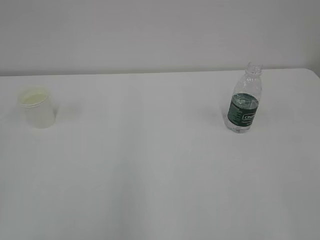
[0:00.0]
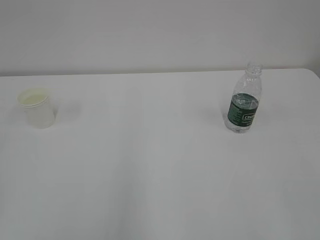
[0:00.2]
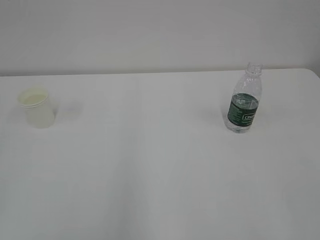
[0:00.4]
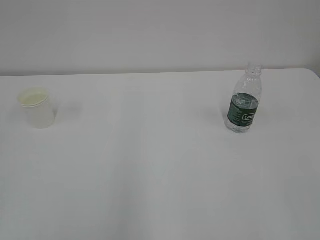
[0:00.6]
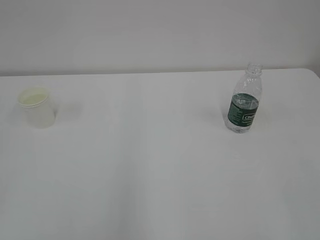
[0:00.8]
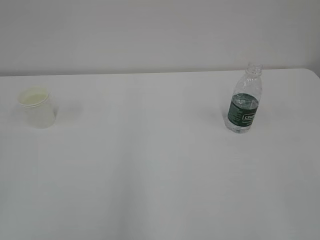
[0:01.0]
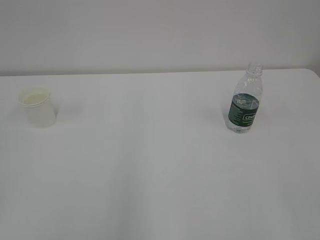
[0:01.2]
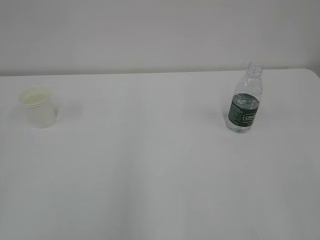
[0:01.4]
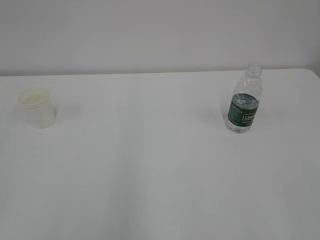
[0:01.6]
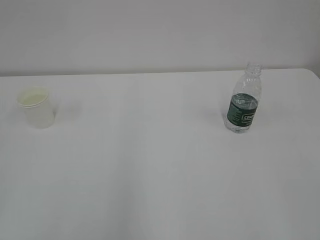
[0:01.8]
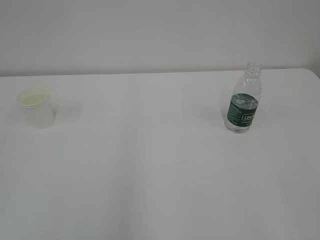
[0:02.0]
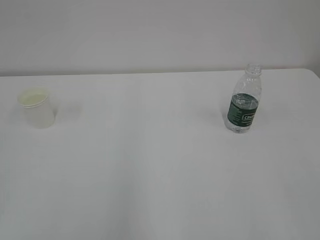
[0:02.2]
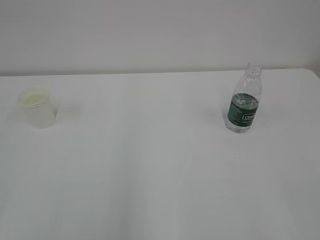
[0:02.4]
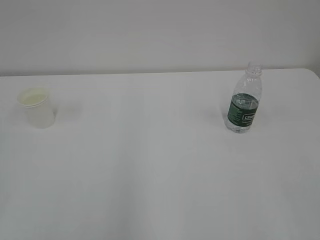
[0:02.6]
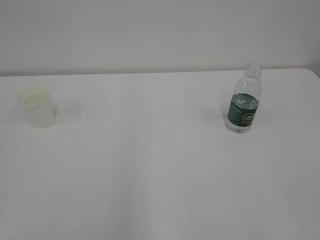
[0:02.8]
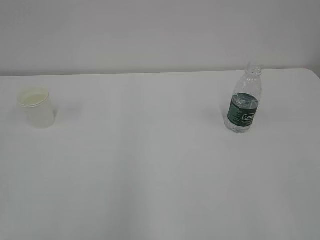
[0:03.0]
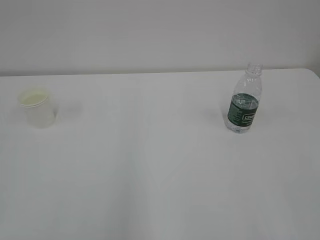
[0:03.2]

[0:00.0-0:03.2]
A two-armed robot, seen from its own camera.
0:01.6 to 0:03.2: The two grippers keep their place.

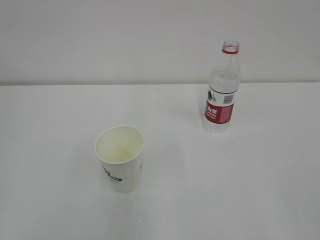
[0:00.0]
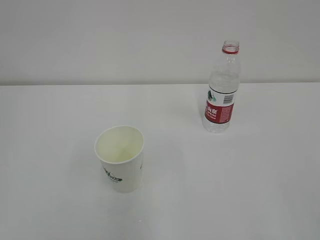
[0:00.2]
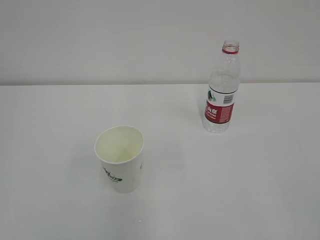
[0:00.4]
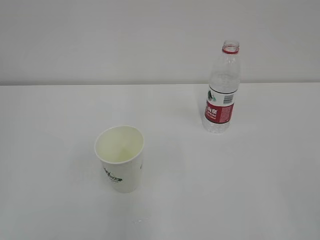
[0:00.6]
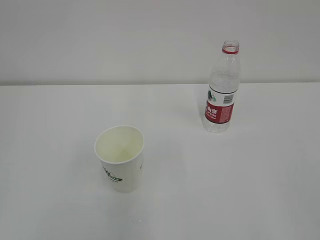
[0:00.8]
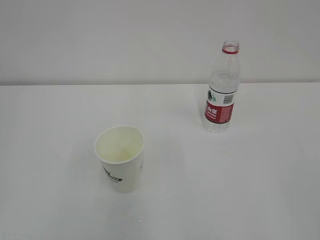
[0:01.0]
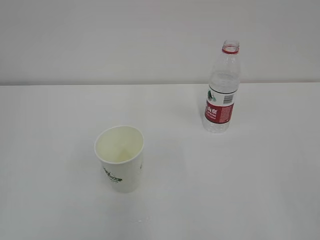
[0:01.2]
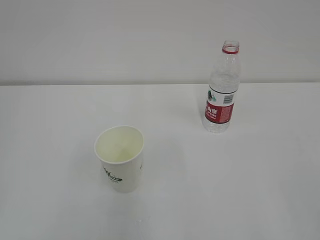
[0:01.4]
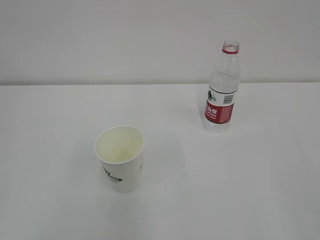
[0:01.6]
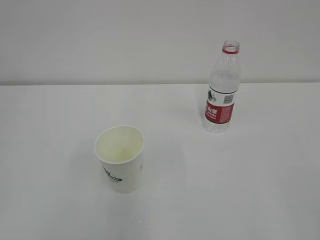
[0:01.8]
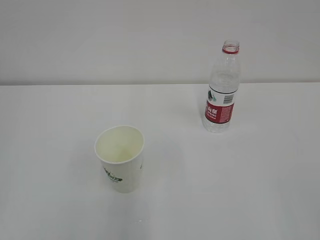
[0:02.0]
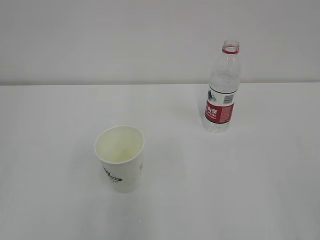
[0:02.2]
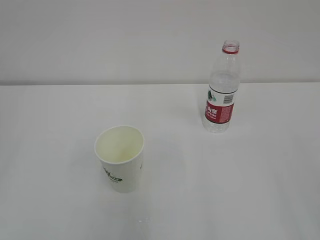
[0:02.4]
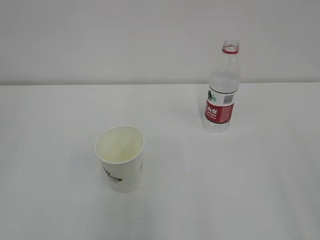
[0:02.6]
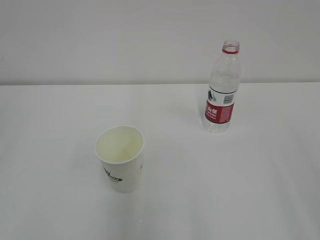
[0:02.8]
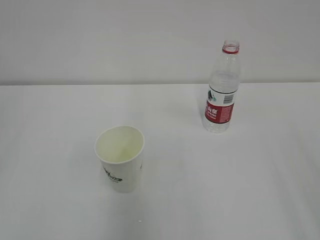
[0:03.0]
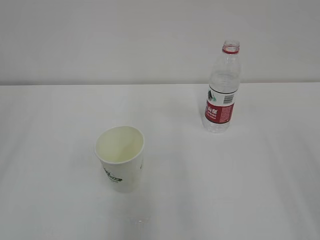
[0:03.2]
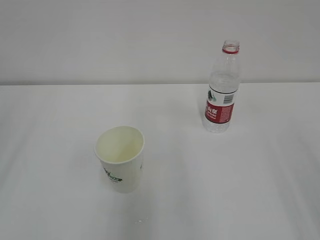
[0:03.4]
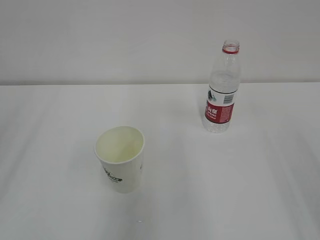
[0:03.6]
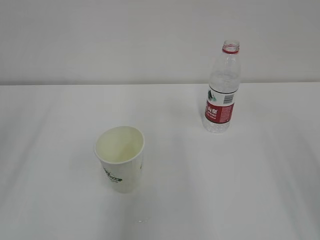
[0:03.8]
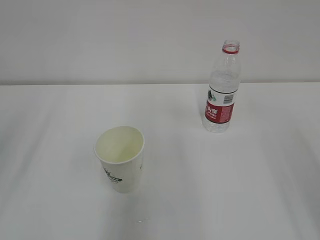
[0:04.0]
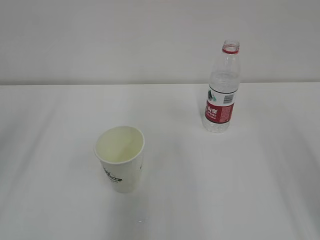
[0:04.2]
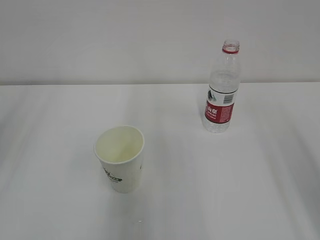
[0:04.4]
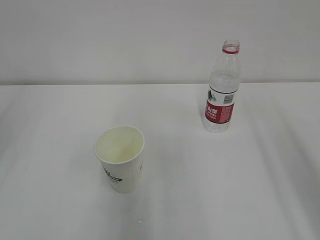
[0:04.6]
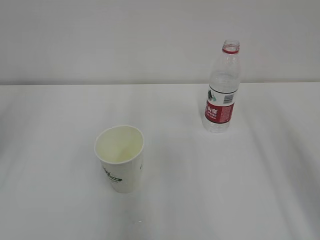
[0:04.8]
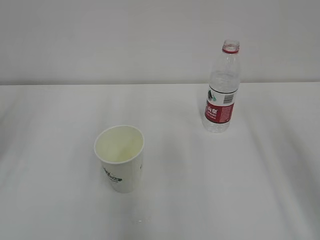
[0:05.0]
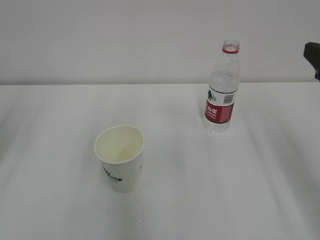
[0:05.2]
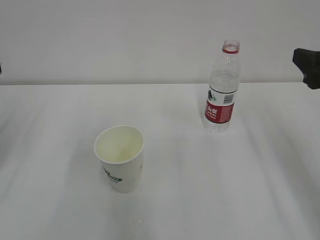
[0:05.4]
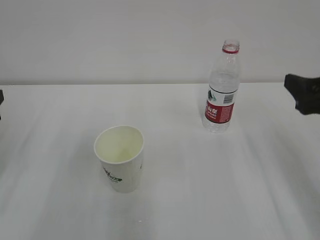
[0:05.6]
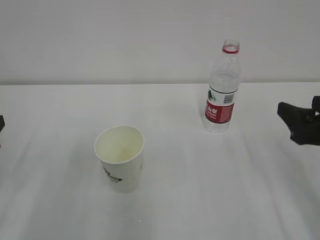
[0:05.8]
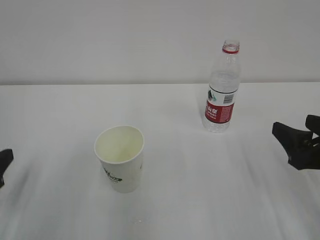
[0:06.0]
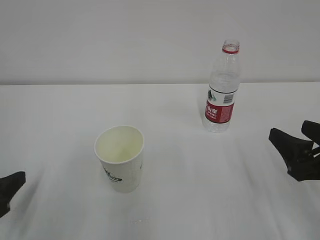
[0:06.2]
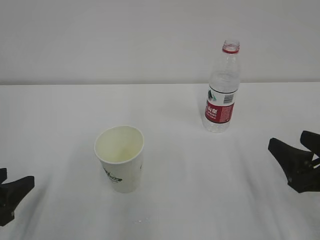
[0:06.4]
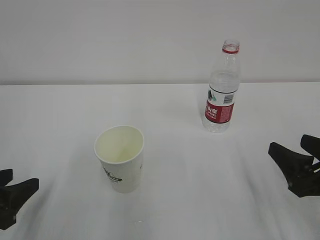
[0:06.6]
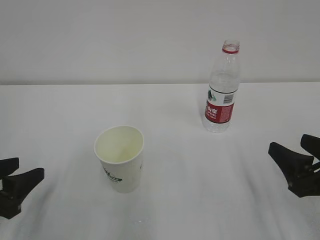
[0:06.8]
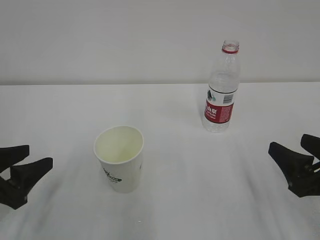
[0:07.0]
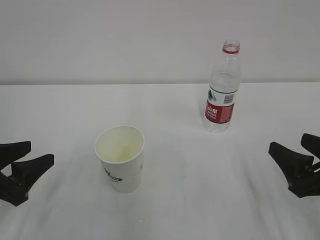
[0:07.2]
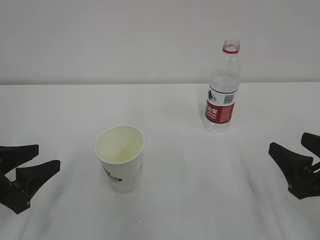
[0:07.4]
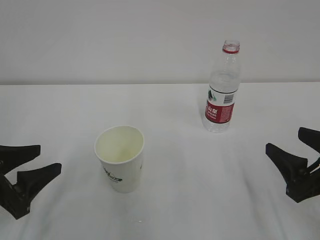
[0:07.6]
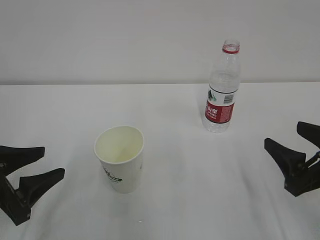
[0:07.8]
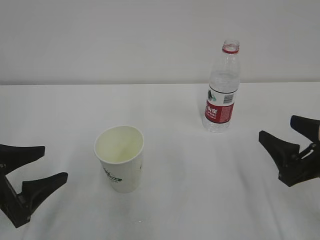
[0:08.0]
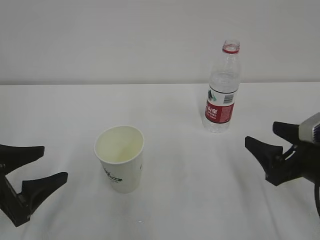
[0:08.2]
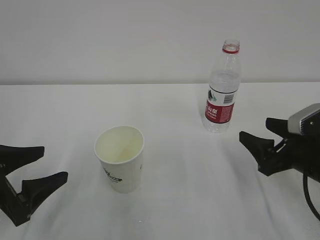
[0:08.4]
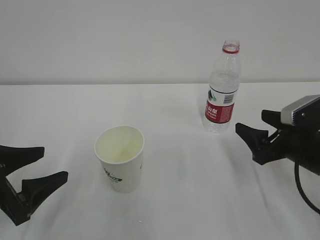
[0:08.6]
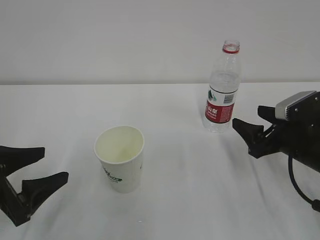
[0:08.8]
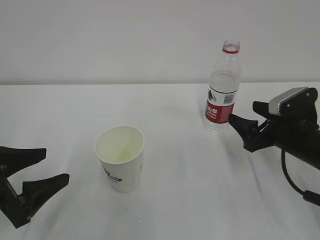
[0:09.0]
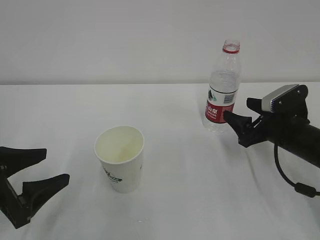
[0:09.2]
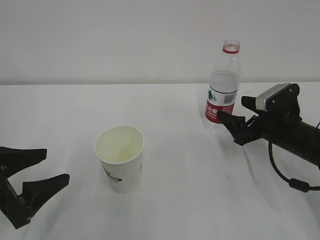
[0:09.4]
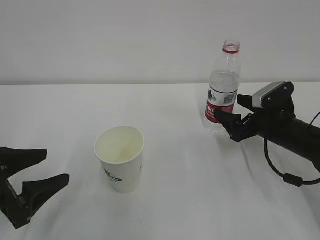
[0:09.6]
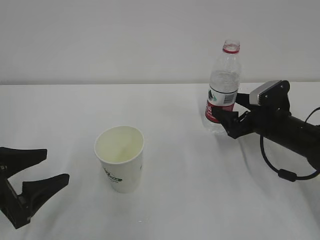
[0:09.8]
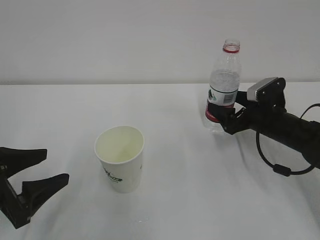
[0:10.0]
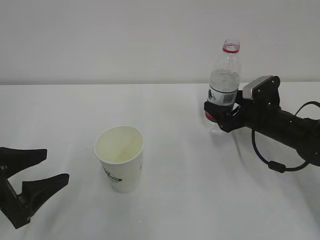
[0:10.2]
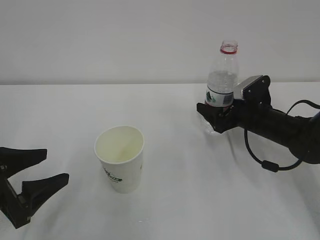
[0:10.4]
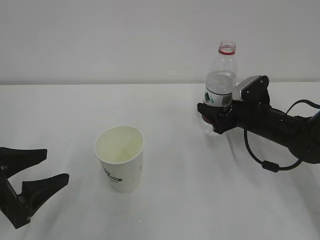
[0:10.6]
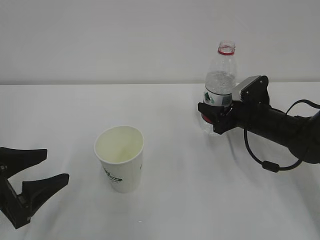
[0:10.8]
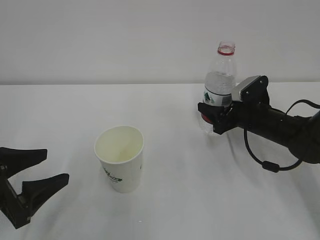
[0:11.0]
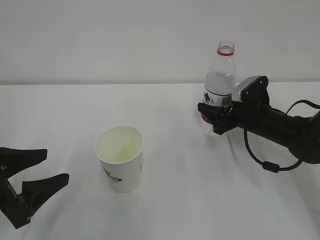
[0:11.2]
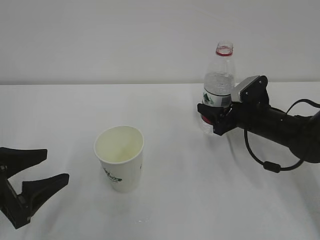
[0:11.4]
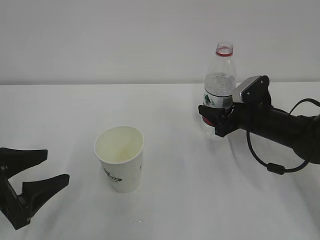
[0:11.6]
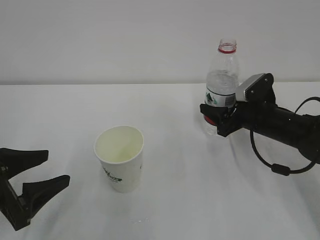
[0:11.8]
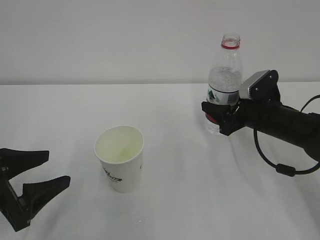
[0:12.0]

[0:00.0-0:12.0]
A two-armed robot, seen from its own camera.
0:04.4 to 0:06.0: The two grippers go about 20 cm downward.
0:07.6 to 0:09.0: The right gripper is displaced forward by about 10 cm, while the left gripper opens its fingers.
0:09.0 to 0:10.4: The right gripper moves forward, about 10 cm.
0:10.4 to 0:12.0: The right gripper closes up.

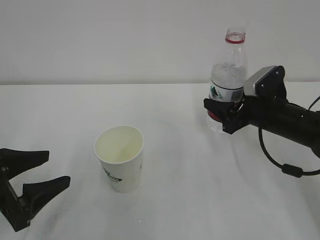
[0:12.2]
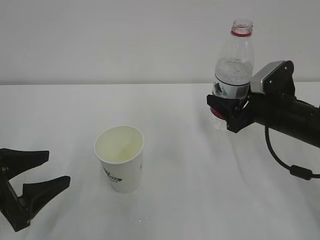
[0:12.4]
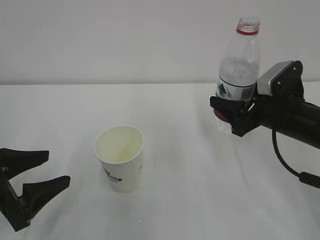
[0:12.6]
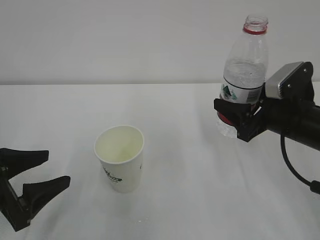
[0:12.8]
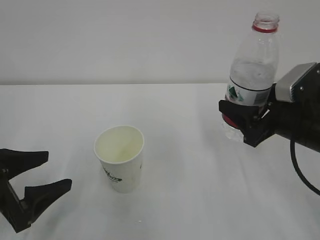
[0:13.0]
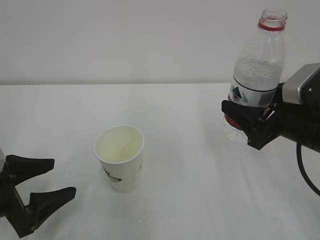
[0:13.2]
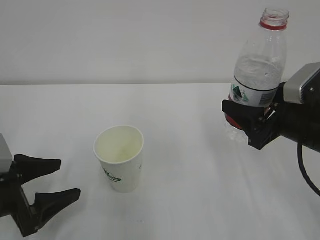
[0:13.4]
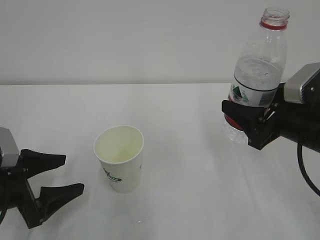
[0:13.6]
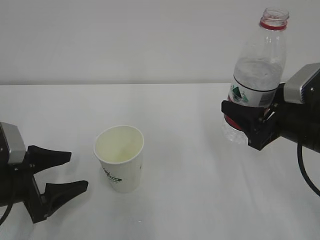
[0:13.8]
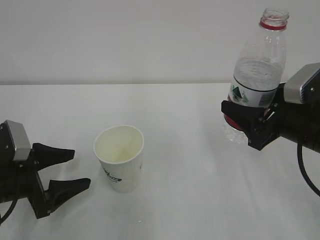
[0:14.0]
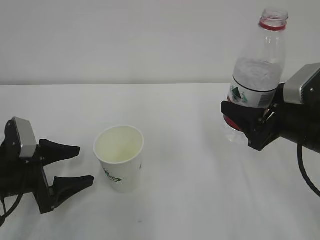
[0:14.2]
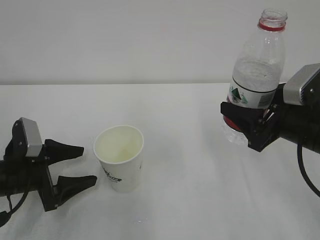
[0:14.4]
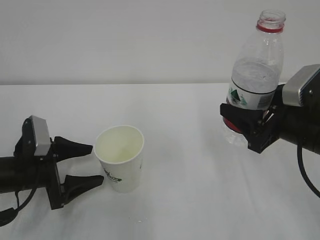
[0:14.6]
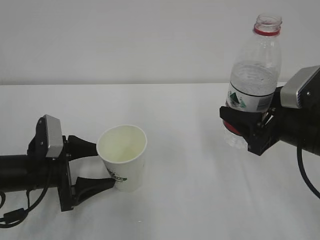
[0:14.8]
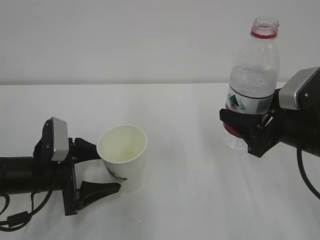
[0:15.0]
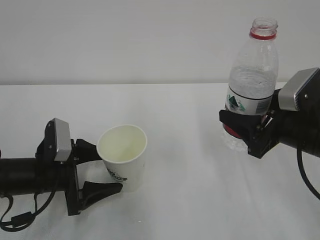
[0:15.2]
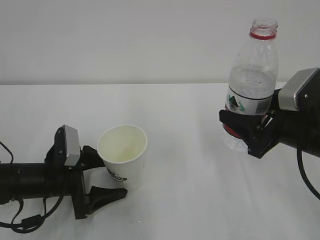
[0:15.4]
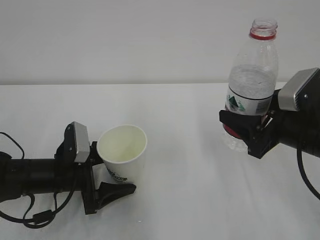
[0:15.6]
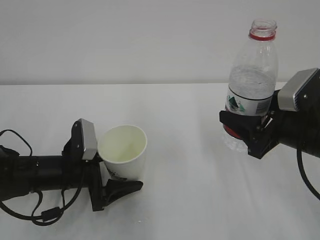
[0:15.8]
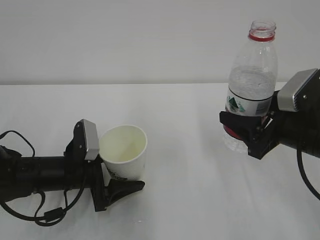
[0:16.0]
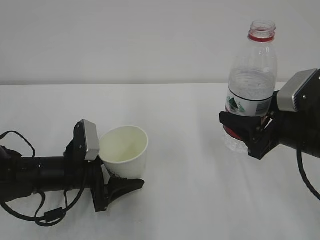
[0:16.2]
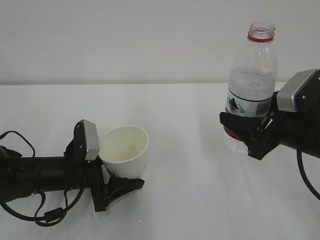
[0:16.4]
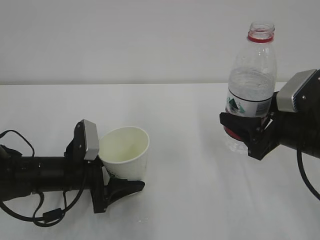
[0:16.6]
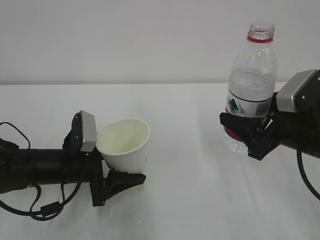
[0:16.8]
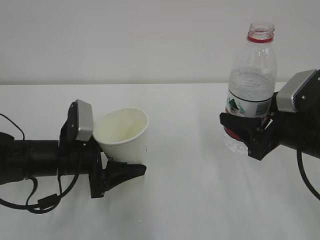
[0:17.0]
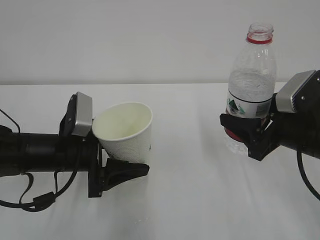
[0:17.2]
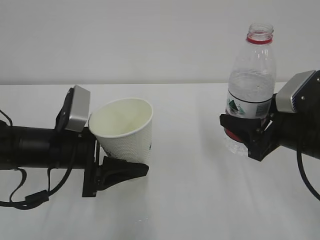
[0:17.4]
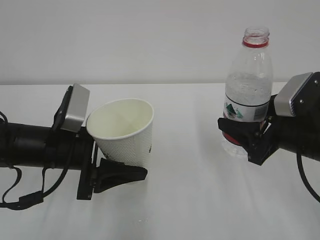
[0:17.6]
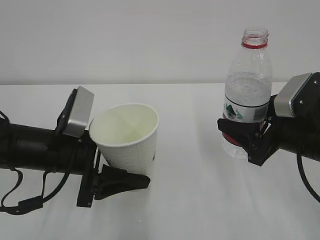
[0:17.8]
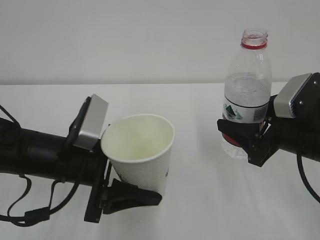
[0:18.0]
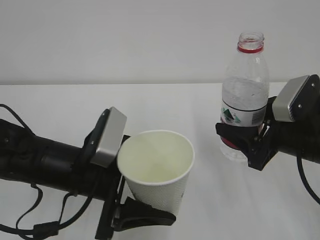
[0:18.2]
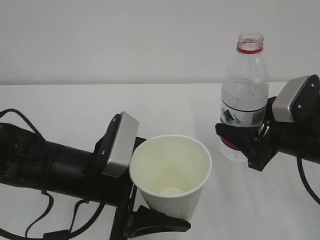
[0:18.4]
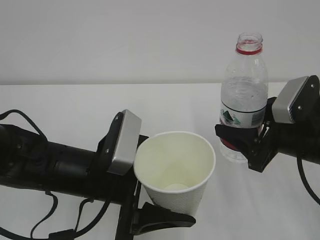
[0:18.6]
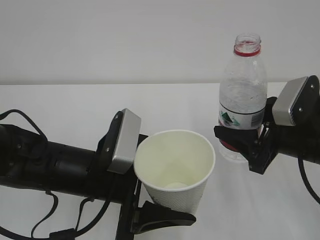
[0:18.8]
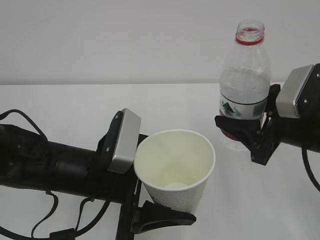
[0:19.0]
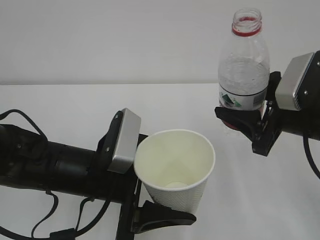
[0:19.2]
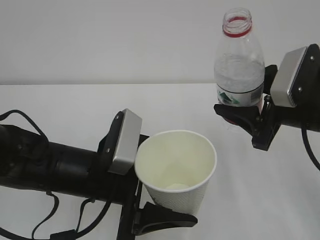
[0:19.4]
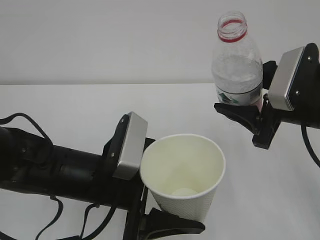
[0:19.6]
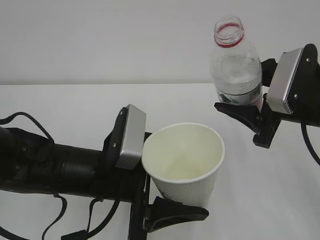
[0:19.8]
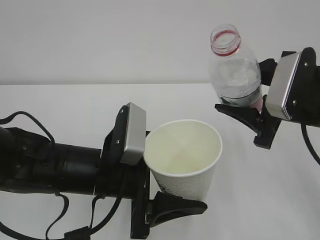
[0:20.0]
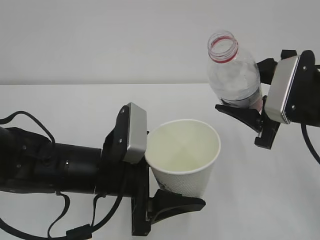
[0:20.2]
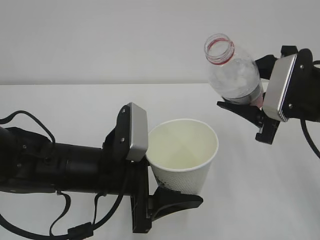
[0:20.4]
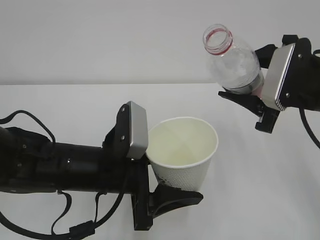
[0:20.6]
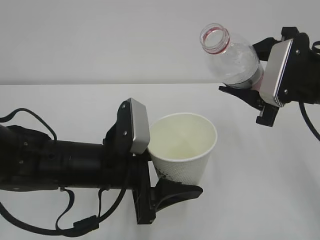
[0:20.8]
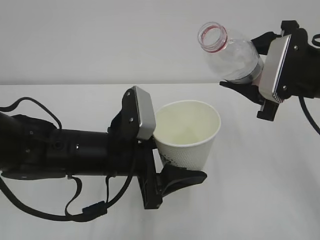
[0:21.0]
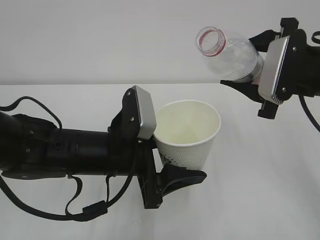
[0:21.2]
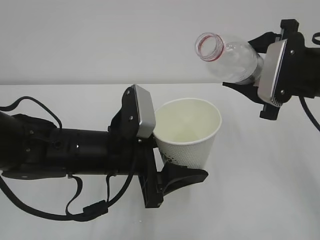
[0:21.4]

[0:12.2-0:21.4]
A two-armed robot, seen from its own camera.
0:12.2 to 0:13.8: The left gripper opens up, while the right gripper heads backward and upward, covering about 10 cm.
0:13.8 to 0:15.2: The left gripper ends up about 5 cm from where it was.
0:15.2 to 0:16.8: The left gripper closes up.
0:16.8 to 0:18.4: The left gripper goes approximately 10 cm upward, to the right and backward.
0:18.4 to 0:19.8: The right gripper moves some 5 cm.
